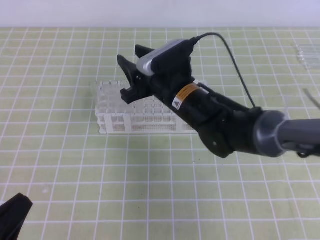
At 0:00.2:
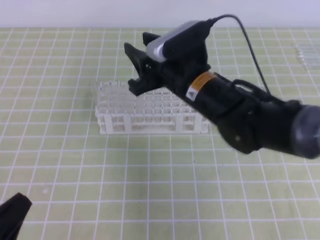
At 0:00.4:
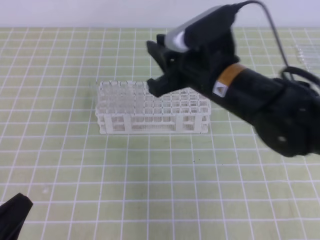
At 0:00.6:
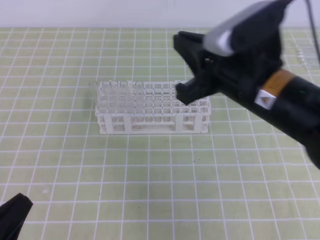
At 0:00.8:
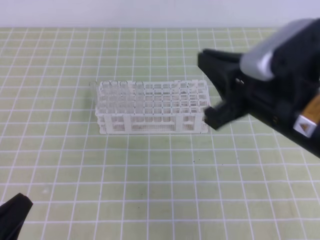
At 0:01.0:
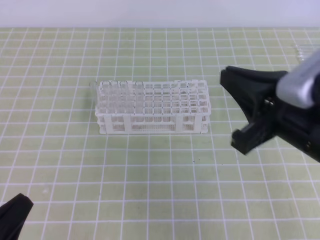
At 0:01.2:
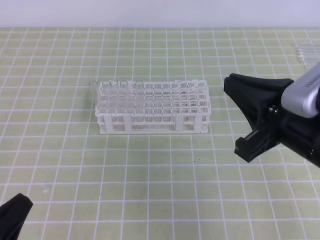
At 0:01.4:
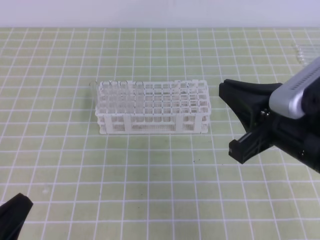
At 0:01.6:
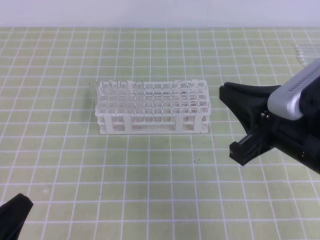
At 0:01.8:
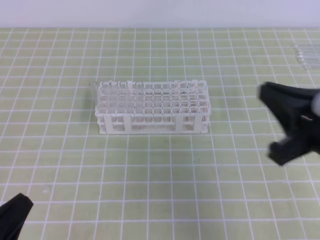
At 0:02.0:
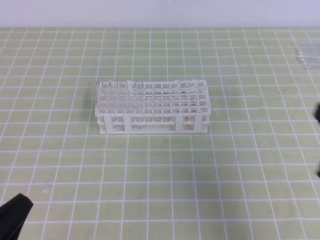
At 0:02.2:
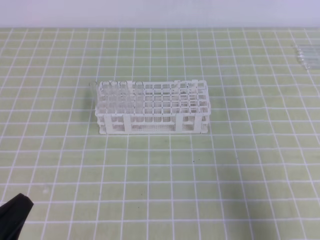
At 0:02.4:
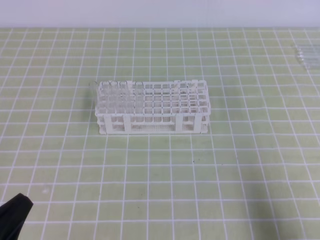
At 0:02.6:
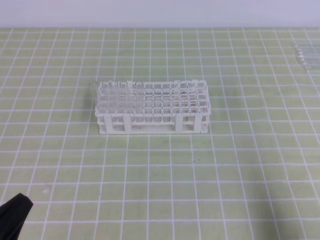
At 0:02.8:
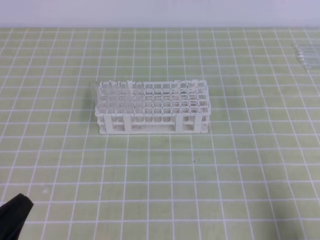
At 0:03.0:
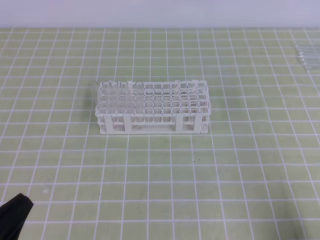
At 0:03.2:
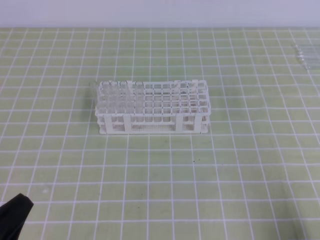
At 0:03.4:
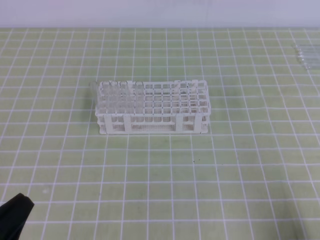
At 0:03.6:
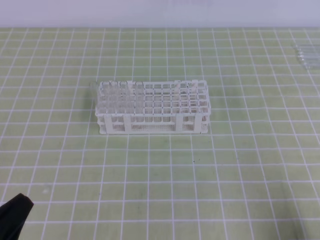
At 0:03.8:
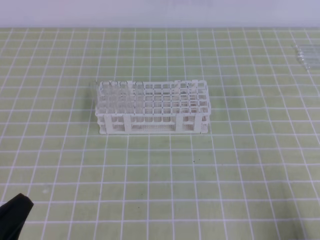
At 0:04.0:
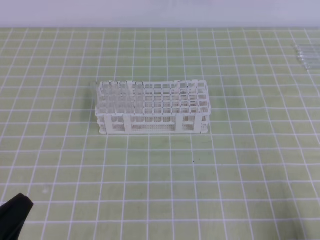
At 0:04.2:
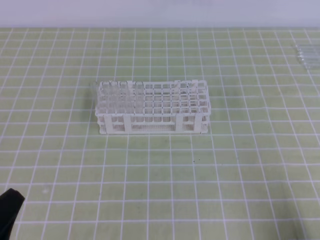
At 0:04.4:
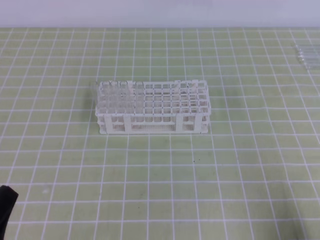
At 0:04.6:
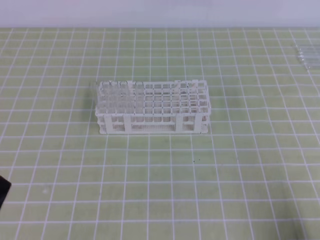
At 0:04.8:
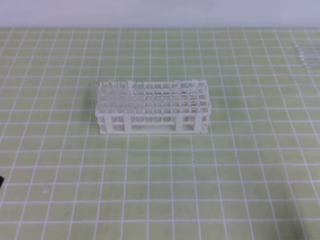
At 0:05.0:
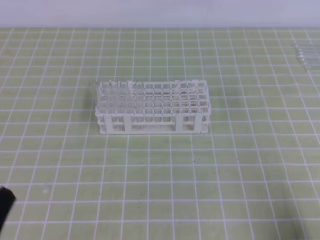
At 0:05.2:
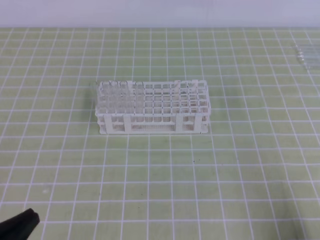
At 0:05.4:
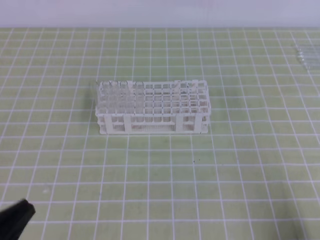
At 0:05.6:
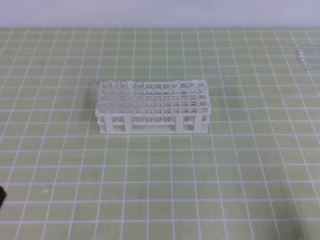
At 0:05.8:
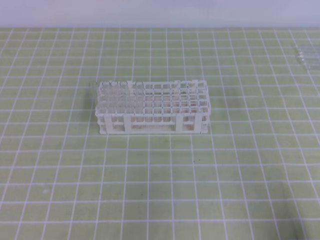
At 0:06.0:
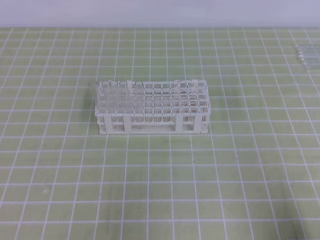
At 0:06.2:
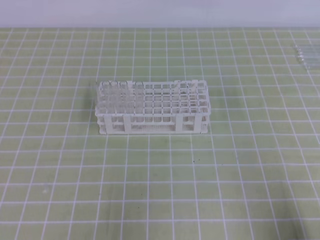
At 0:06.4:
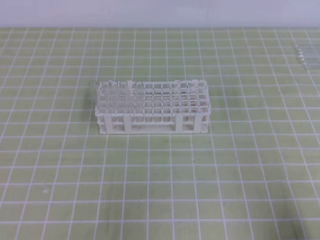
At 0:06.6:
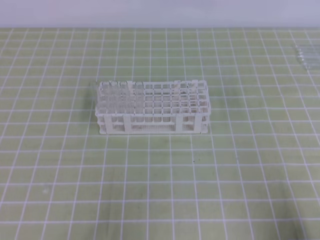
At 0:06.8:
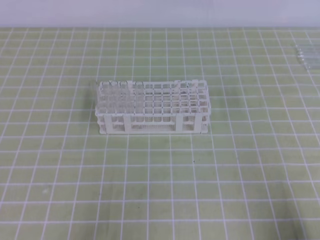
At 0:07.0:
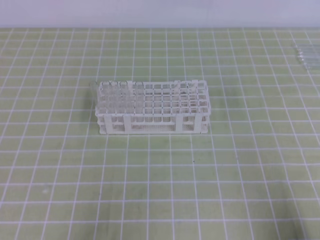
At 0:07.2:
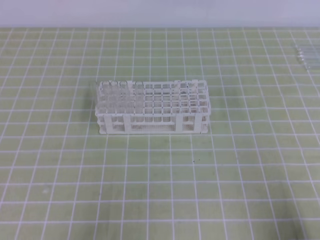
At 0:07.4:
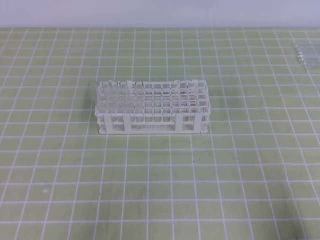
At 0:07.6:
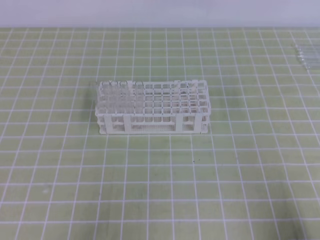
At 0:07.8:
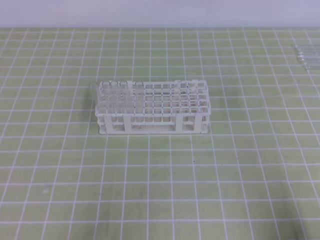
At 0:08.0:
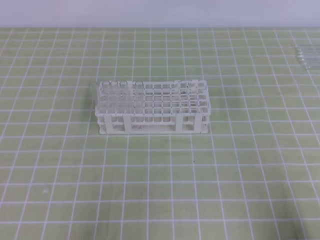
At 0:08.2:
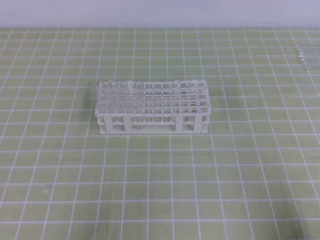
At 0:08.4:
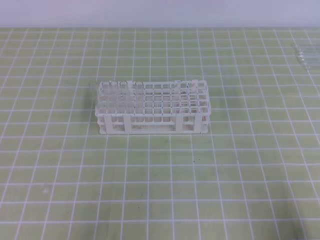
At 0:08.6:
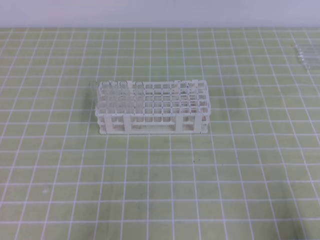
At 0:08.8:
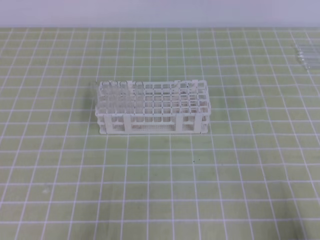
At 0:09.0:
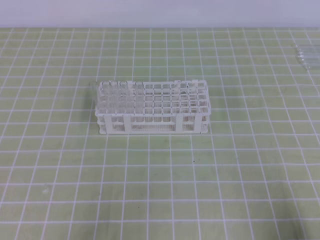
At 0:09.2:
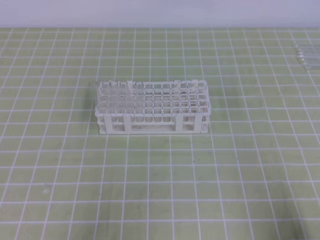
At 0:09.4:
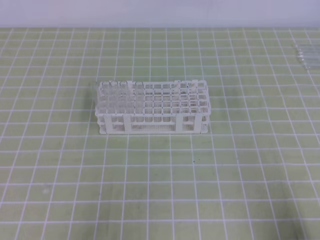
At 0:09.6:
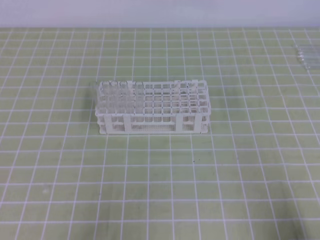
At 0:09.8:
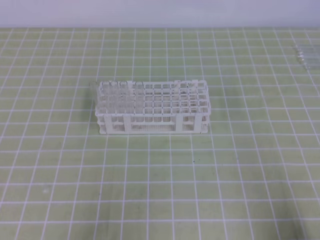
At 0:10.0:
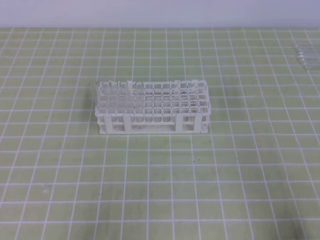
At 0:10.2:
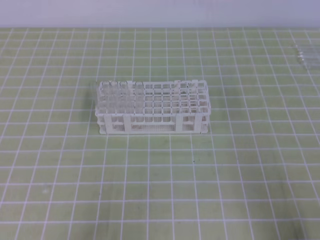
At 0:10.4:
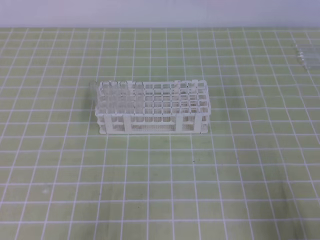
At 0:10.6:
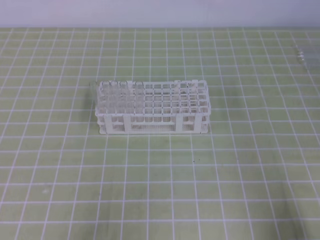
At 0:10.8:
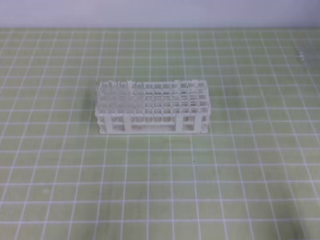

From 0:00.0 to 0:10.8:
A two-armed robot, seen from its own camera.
From 0:00.0 to 0:01.6: The right gripper is displaced backward, to the right and upward by about 25 cm, and closes up.
From 0:01.6 to 0:03.0: The right gripper moves to the right, downward and backward, roughly 20 cm.
From 0:03.0 to 0:04.6: There are only small adjustments of the grippers.
From 0:07.8 to 0:10.8: The two grippers keep their place.

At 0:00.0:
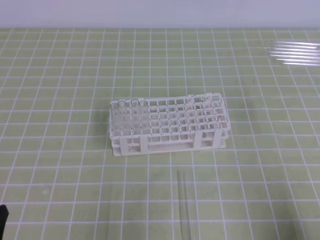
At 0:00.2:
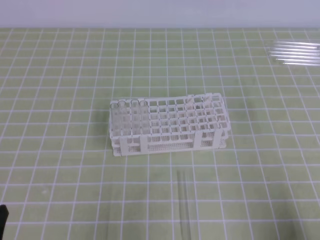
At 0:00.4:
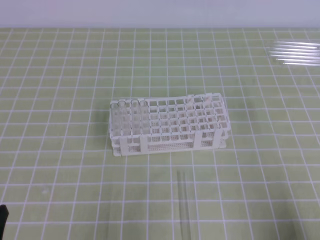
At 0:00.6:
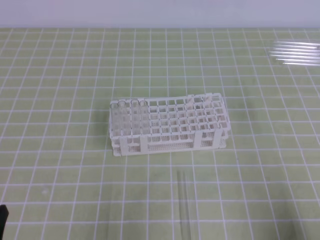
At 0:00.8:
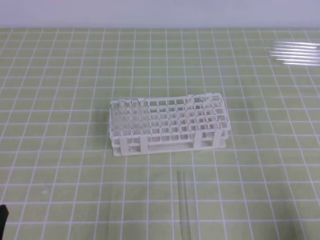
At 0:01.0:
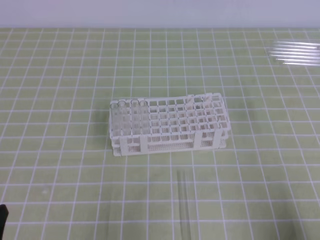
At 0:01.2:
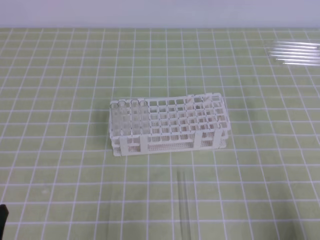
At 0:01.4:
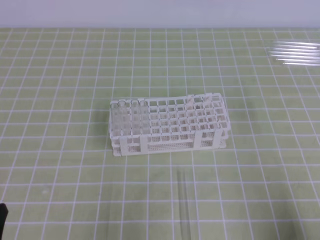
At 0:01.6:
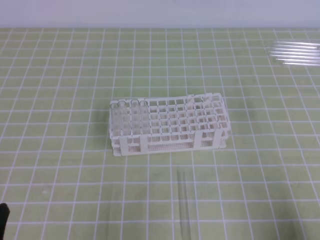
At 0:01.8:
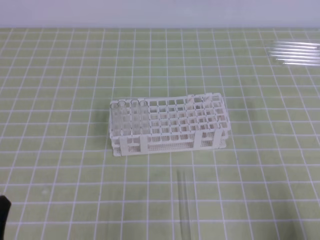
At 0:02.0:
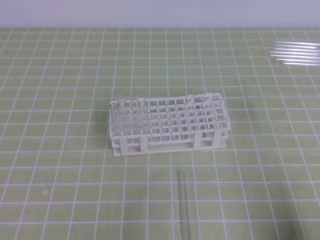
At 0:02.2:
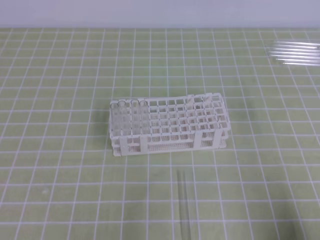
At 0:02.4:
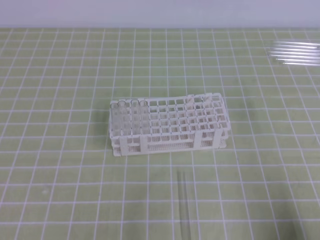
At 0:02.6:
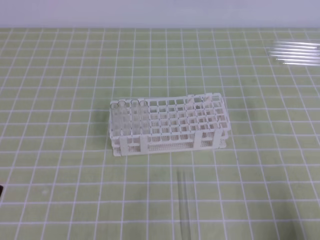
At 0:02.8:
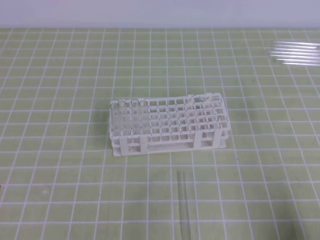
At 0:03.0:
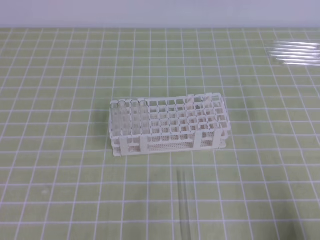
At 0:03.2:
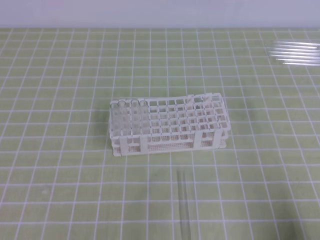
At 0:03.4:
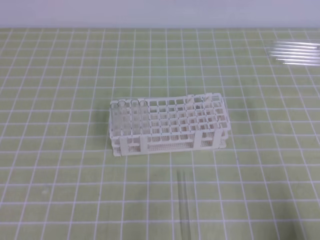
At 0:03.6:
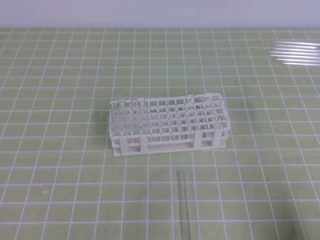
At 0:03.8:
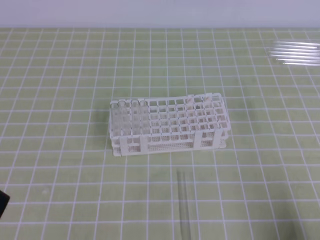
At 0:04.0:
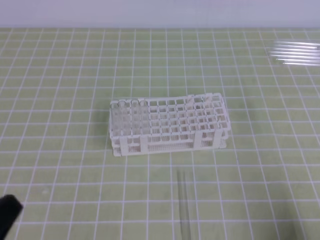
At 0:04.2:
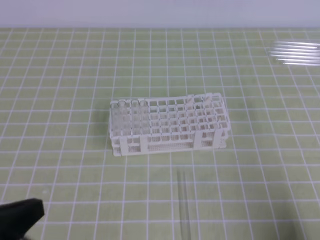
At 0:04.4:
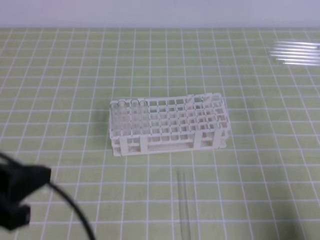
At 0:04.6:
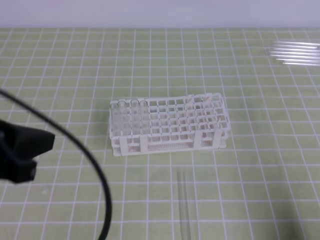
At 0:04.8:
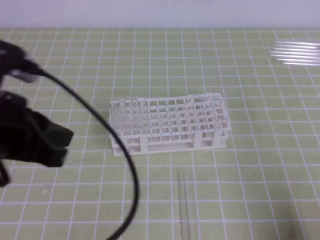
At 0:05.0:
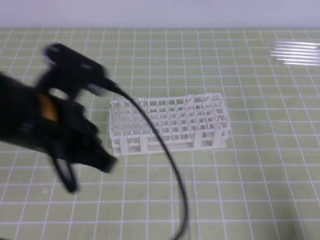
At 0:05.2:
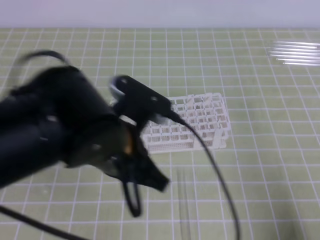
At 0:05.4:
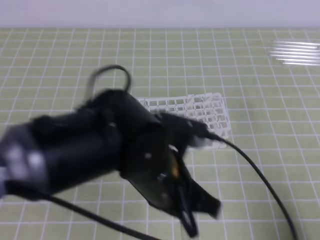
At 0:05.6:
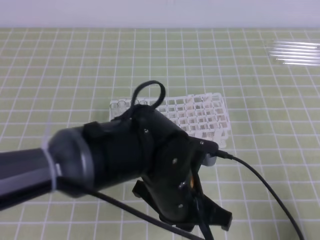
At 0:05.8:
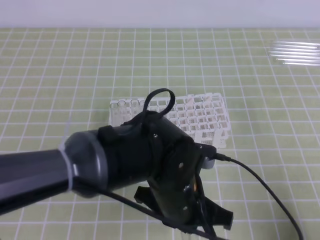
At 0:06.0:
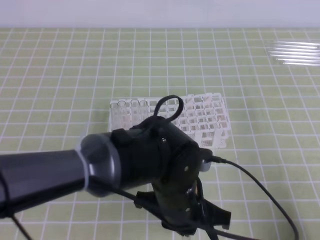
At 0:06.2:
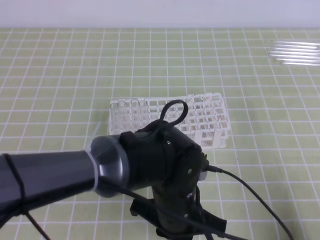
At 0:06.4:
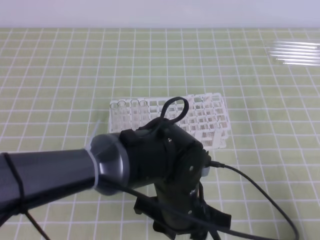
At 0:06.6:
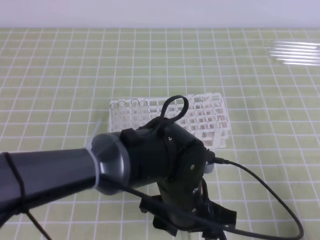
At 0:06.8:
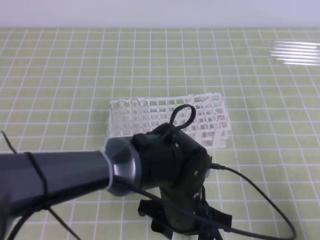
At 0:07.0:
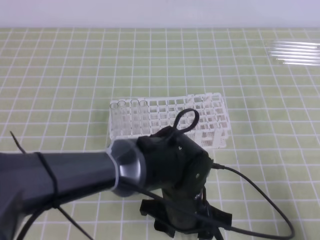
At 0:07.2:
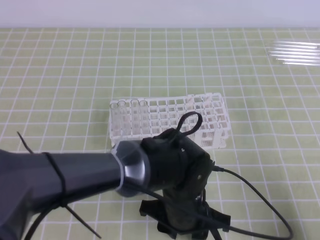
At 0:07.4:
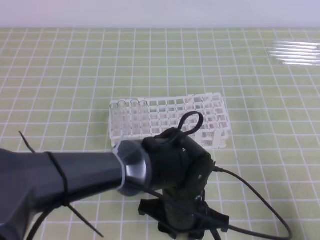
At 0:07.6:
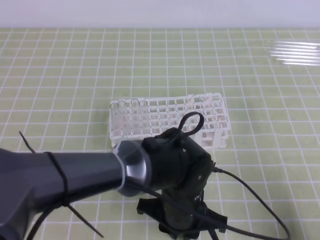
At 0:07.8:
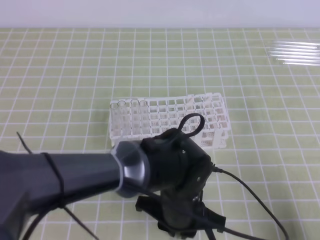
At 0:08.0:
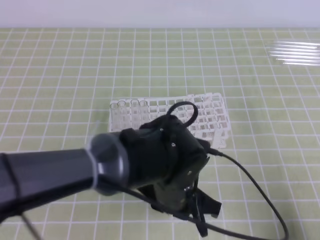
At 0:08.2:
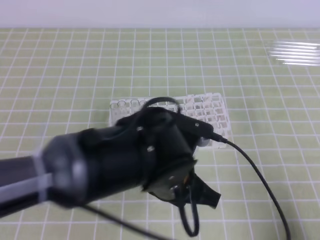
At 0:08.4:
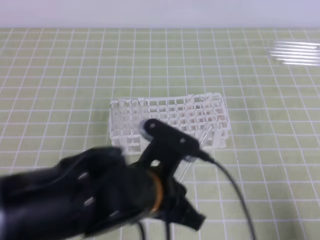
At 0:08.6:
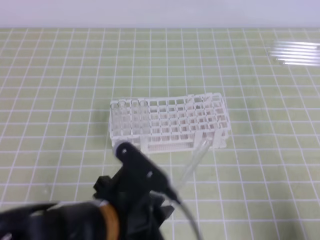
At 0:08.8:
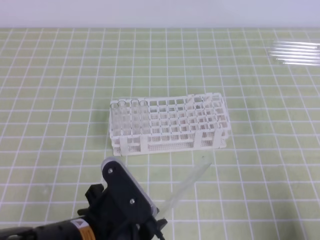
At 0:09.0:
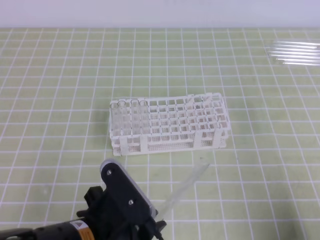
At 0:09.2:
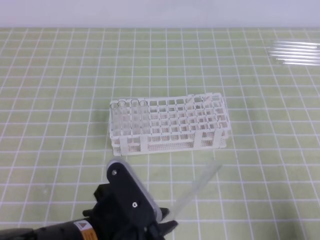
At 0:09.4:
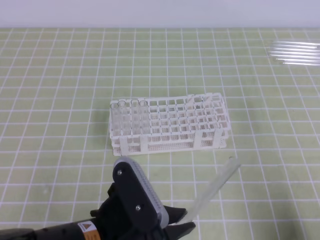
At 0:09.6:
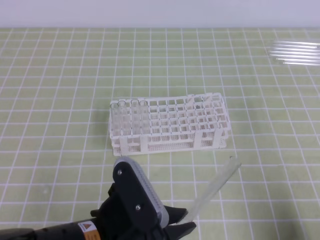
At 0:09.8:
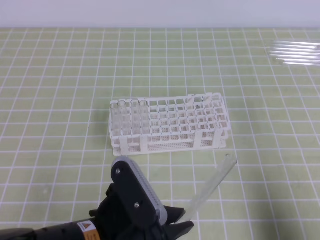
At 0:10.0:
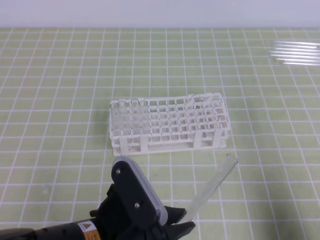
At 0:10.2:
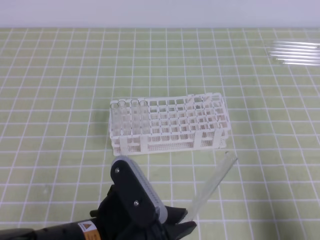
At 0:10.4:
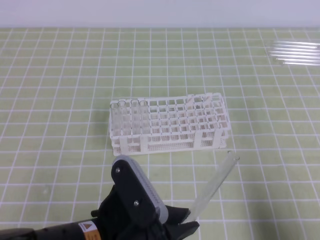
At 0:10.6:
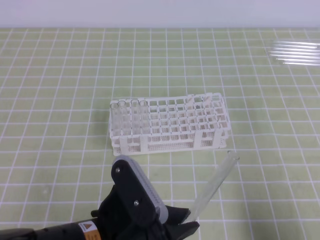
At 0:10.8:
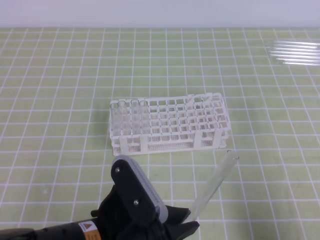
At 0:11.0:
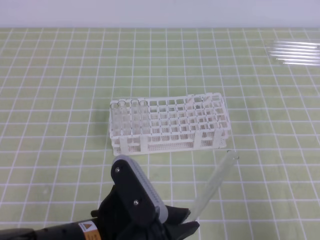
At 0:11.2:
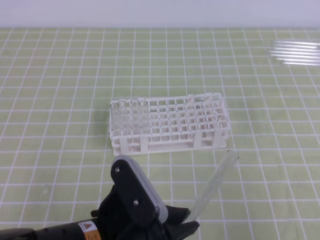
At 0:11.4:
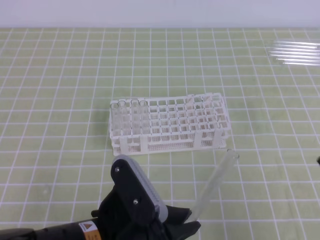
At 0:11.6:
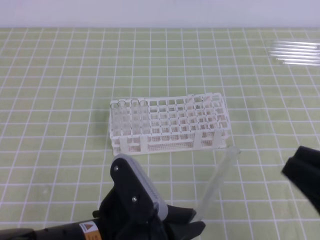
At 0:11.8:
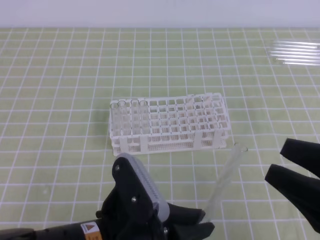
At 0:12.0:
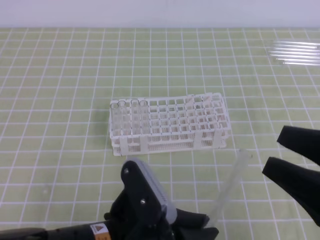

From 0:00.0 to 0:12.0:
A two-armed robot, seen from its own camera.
From 0:03.0 to 0:04.4: The left gripper is displaced upward by about 10 cm, and closes up.
From 0:04.4 to 0:06.0: The left gripper moves to the right and forward, some 25 cm.
From 0:06.0 to 0:07.6: The left gripper shifts some 5 cm downward, and opens up.
From 0:07.6 to 0:09.0: The left gripper travels to the left, backward and upward by some 15 cm, and closes up.
From 0:10.4 to 0:12.0: The right gripper shifts some 10 cm upward and to the left, and opens its fingers.
